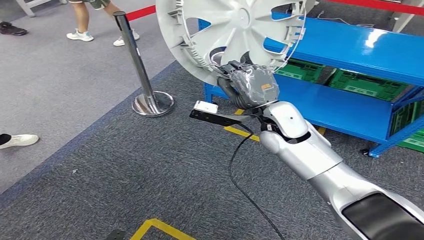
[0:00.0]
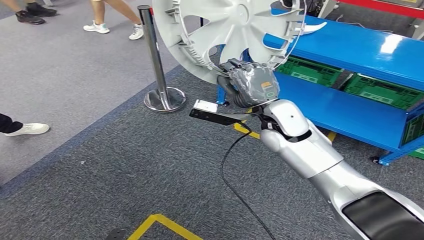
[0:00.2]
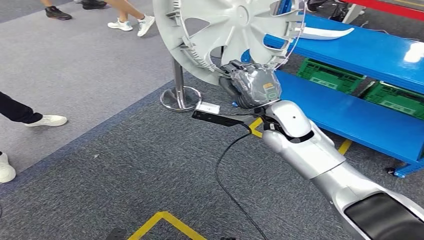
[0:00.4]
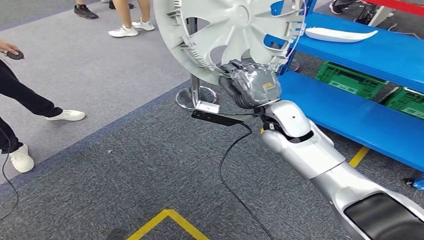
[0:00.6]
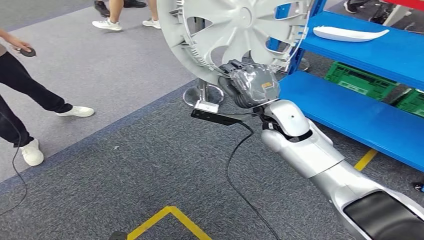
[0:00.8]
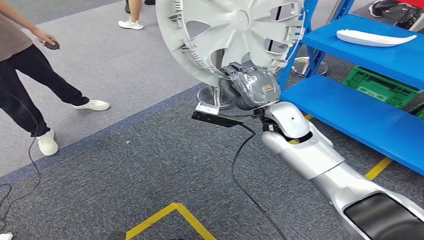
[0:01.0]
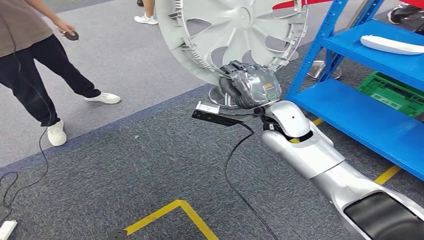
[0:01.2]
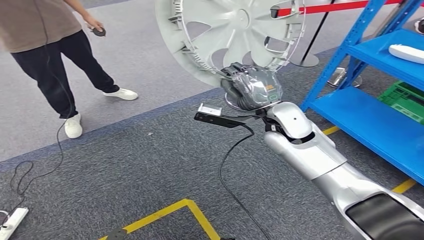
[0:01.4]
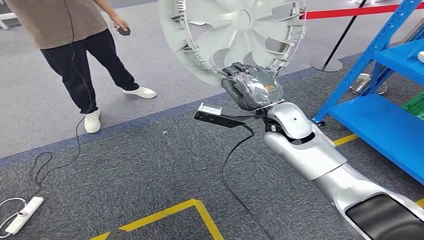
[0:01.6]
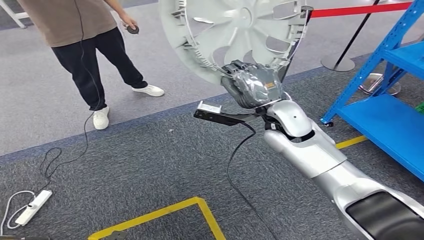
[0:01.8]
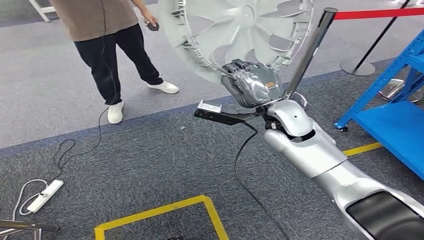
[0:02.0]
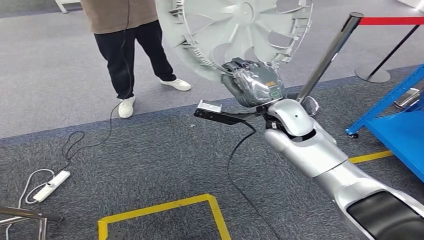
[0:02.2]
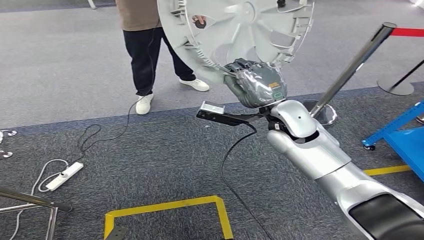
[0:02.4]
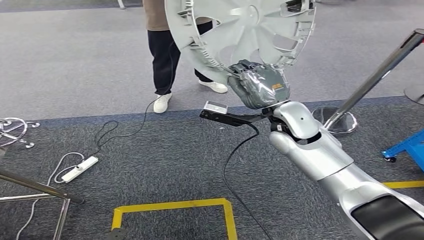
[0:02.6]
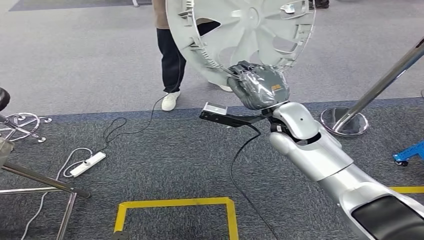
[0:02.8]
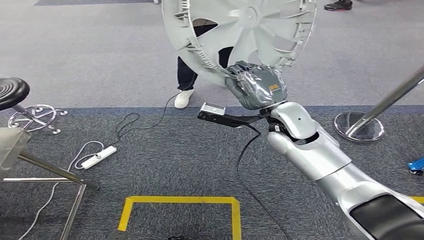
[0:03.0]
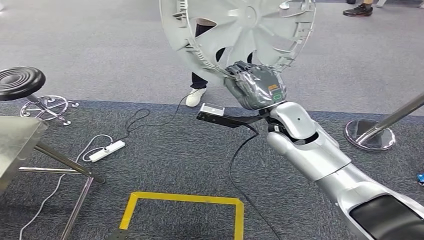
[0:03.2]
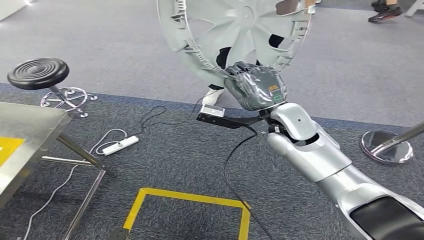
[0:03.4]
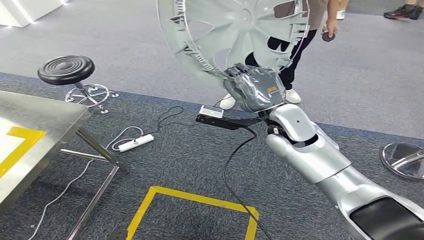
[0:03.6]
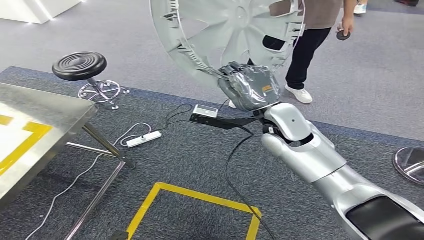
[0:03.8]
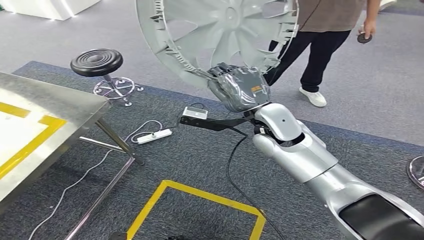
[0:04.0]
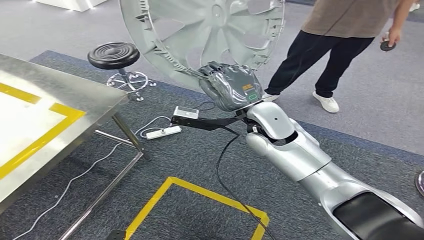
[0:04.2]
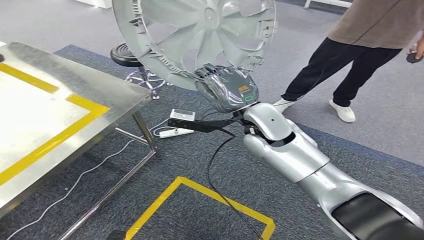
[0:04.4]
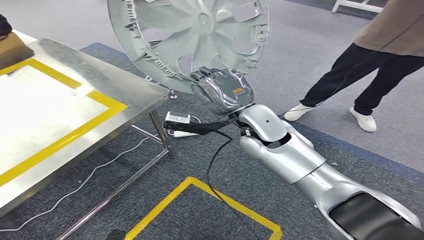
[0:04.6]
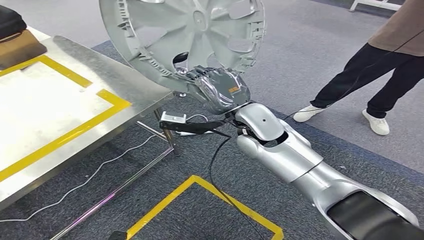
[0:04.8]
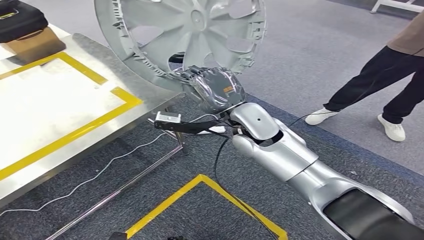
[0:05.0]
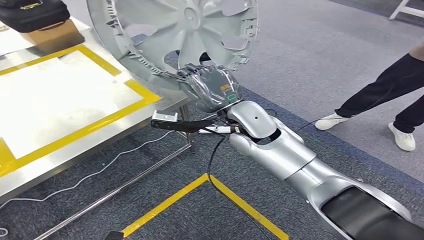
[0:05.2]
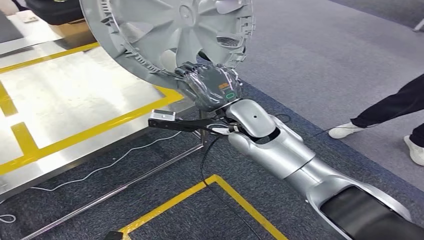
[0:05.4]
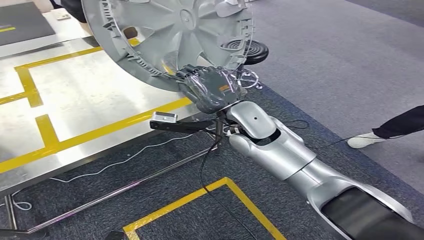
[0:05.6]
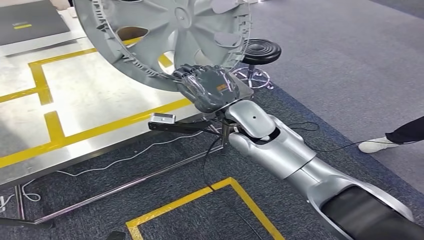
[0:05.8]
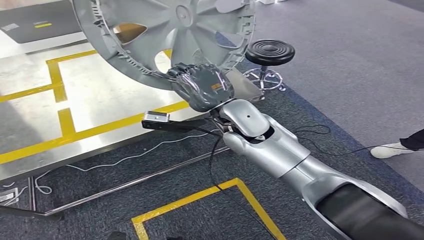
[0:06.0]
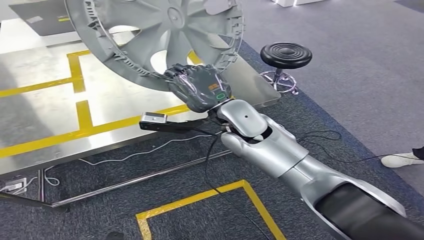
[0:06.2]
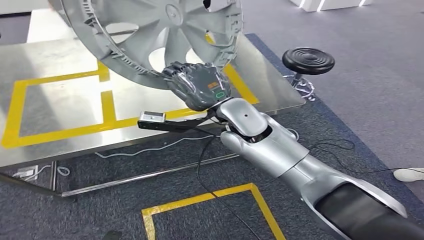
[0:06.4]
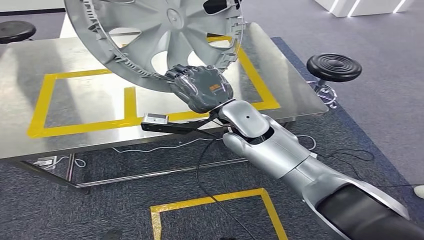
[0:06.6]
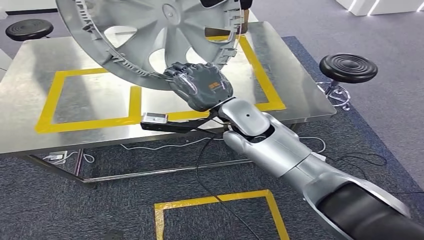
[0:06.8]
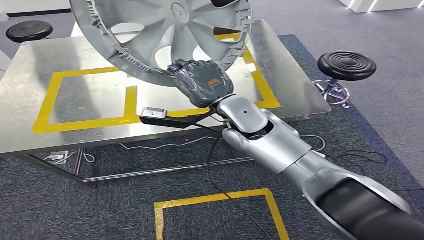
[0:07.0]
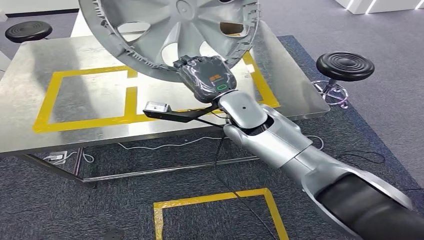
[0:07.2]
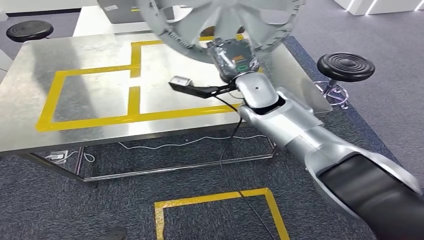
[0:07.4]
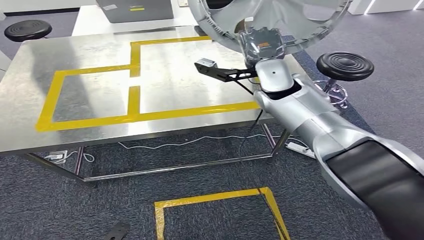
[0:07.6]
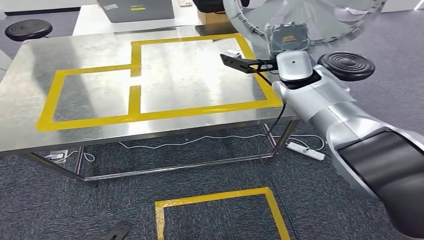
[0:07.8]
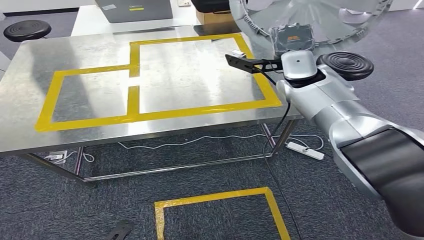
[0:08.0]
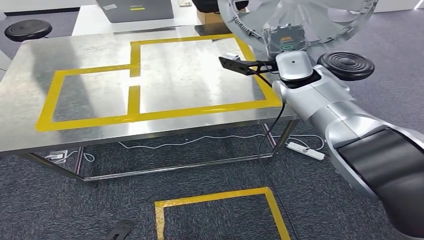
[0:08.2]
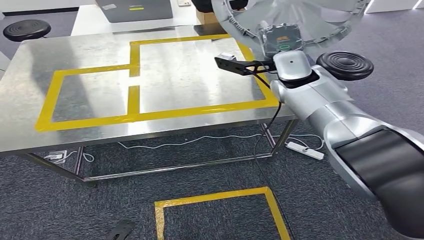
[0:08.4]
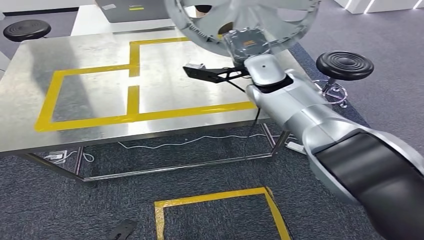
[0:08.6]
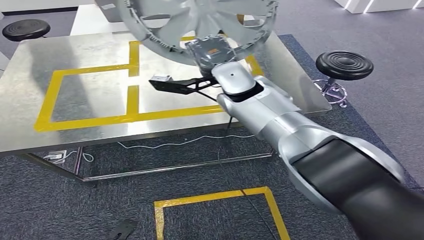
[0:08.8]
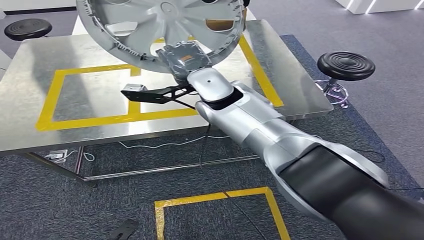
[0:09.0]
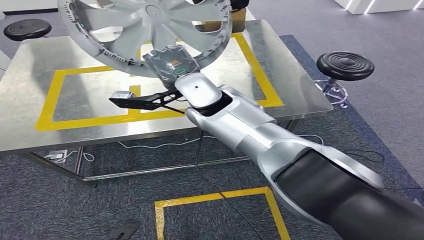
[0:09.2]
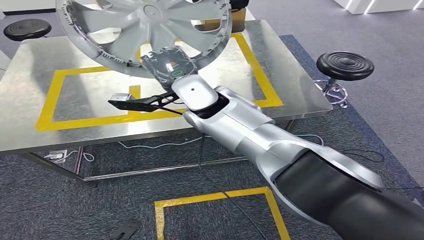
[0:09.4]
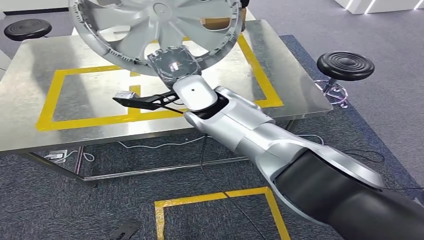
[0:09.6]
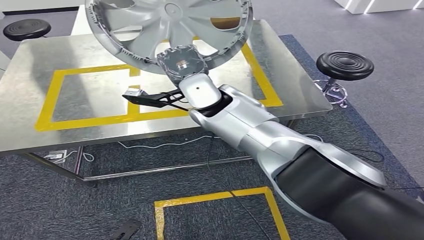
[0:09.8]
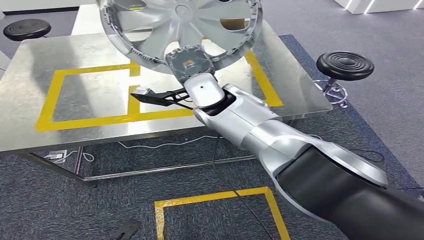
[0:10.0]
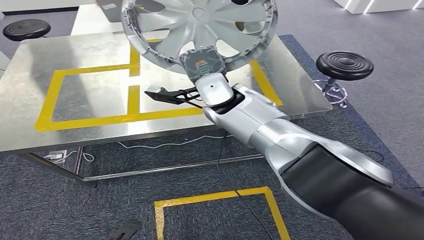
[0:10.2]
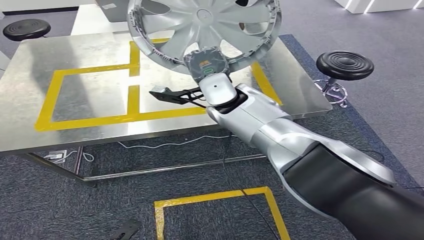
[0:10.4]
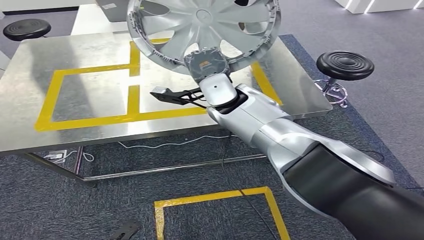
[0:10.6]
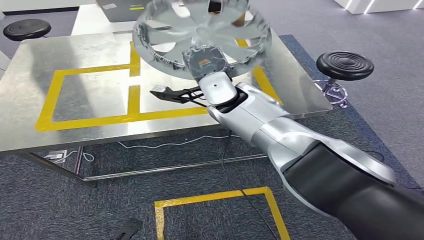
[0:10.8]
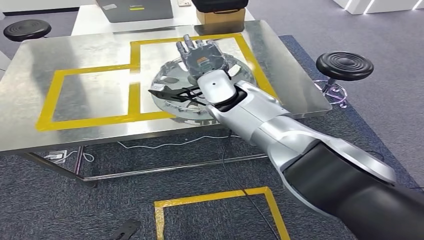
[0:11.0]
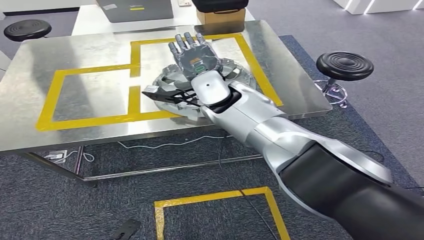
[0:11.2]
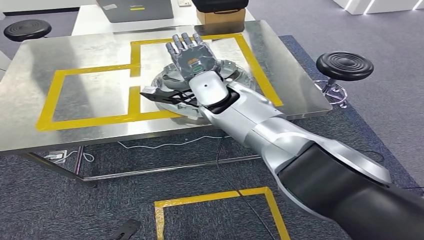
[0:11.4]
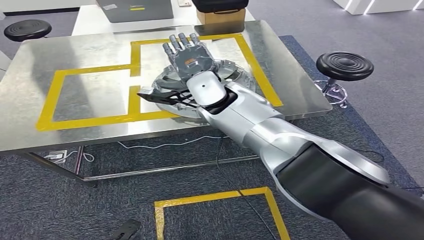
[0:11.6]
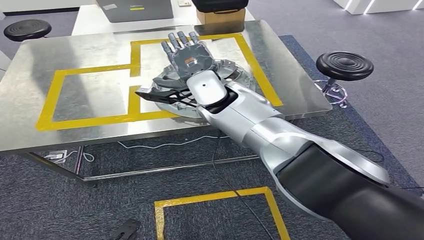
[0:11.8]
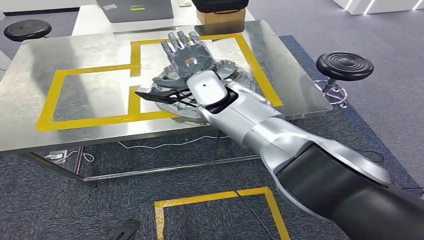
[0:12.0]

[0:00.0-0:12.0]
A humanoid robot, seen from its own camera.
Step, 0:00.0 to 0:09.6: Bring the small component to the front of the workbench.
0:09.0 to 0:12.0: There are only small adjustments of the hands.

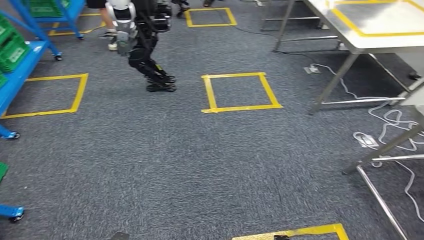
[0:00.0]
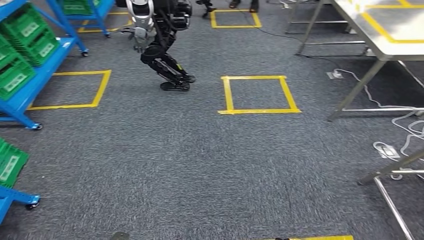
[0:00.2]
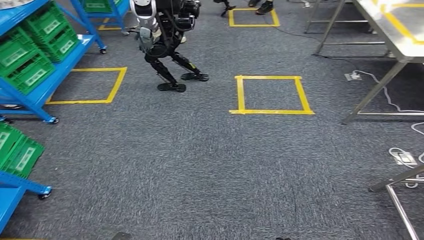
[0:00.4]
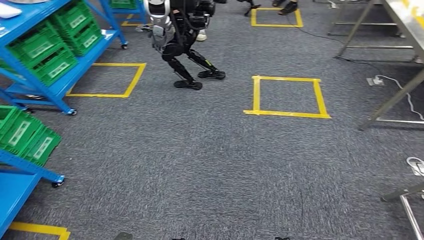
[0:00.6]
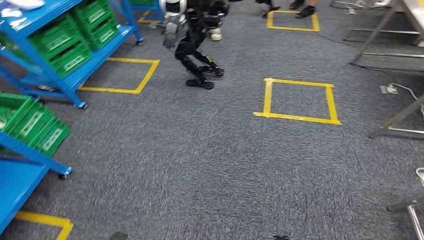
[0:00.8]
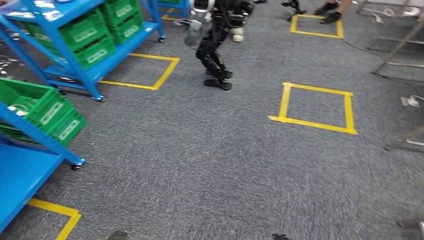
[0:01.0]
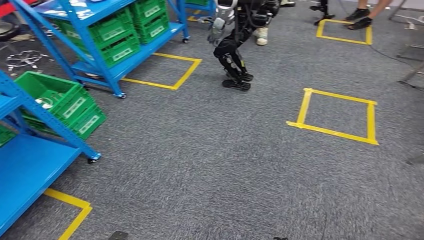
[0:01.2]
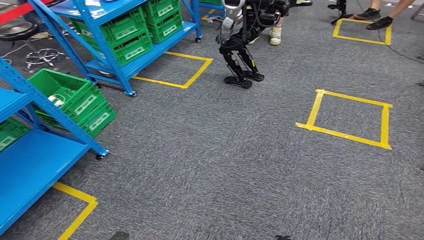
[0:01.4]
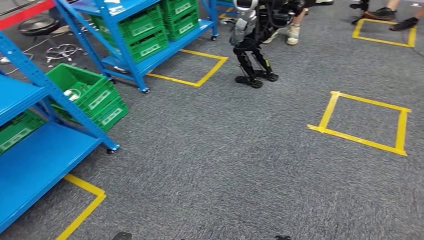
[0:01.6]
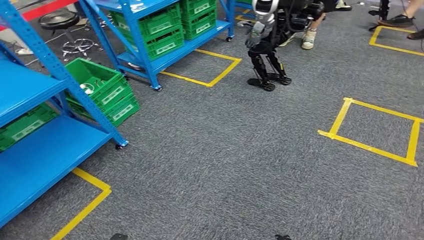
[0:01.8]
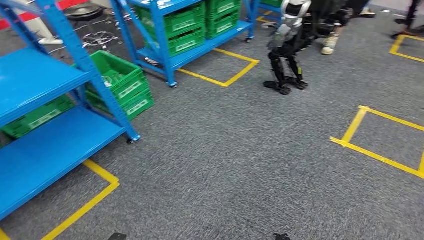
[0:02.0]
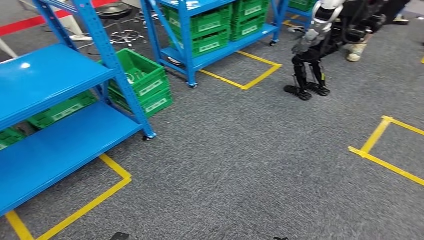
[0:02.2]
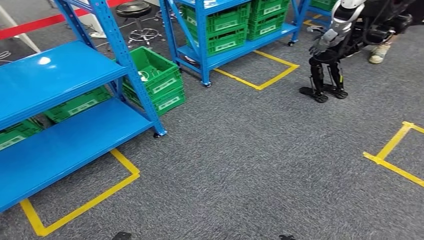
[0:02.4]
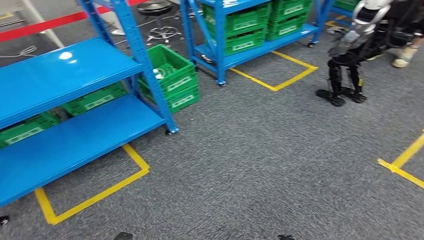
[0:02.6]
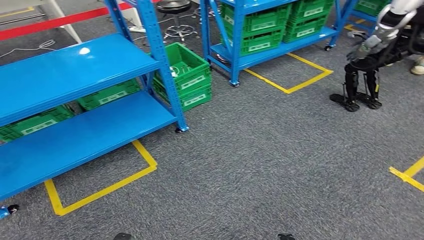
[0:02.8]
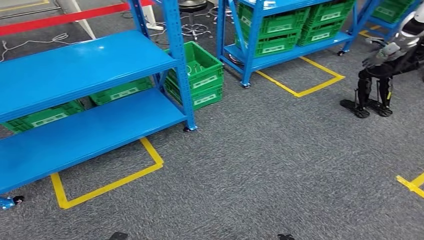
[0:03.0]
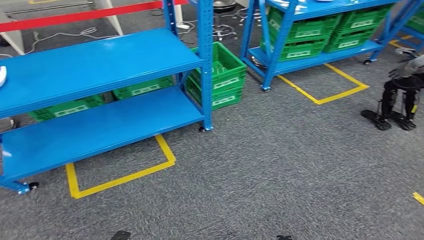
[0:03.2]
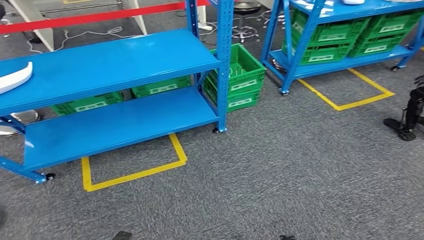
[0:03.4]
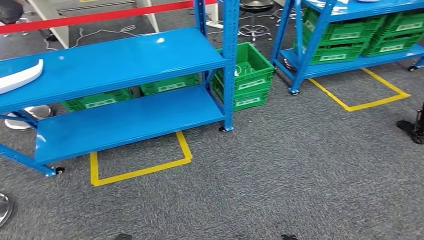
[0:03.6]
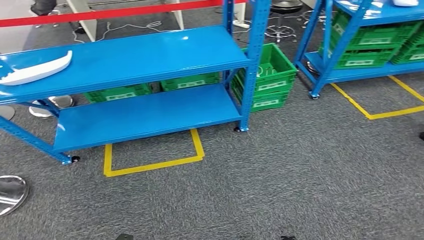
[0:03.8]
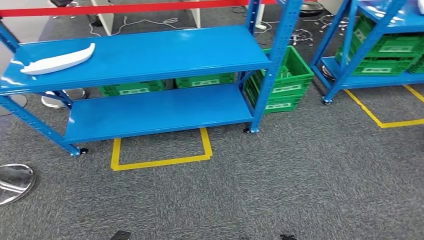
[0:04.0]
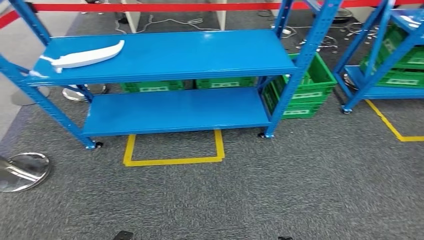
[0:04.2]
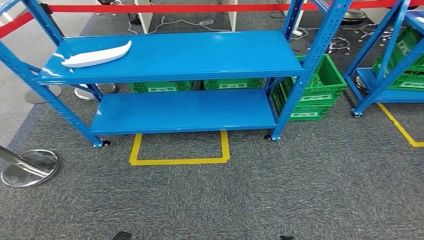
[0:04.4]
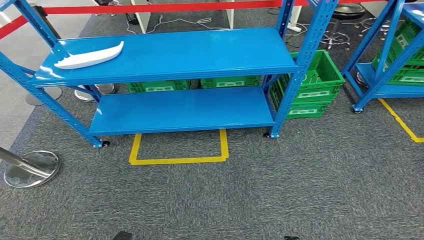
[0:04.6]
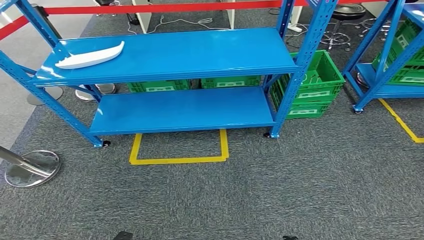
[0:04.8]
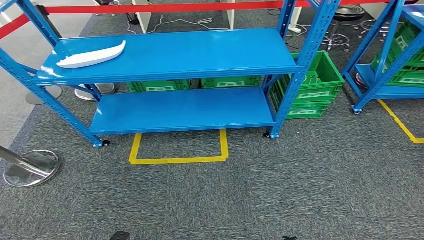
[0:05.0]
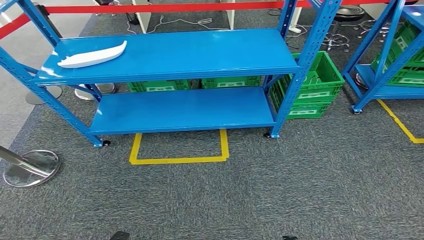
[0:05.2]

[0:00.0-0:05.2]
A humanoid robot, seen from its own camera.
Step, 0:00.0 to 0:05.2: Move to the initial position of the workbench.
